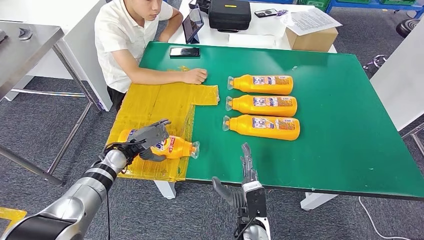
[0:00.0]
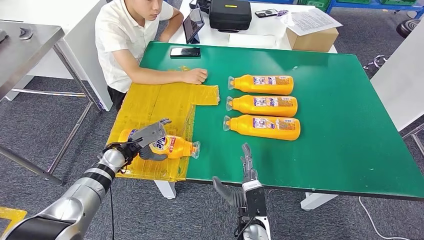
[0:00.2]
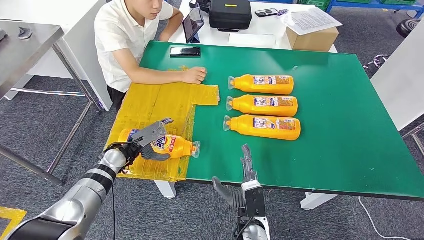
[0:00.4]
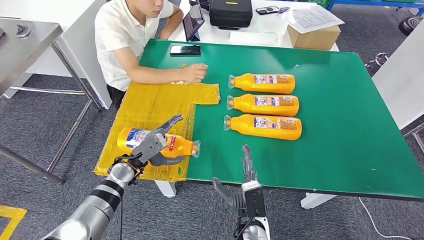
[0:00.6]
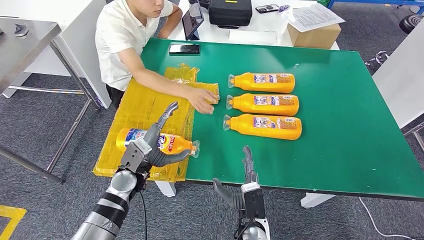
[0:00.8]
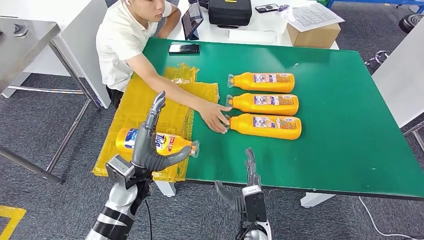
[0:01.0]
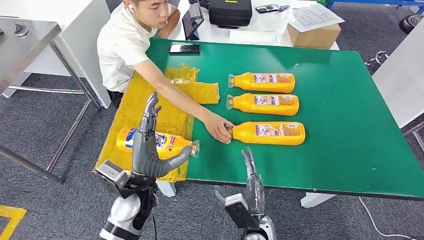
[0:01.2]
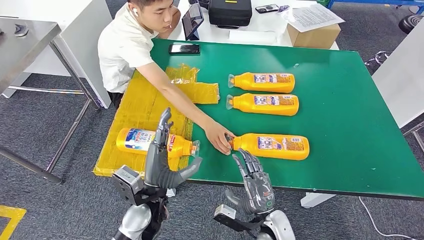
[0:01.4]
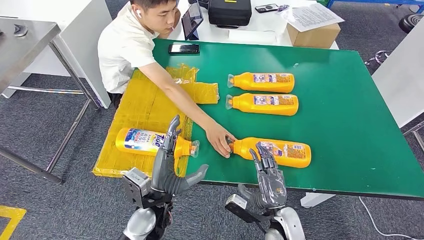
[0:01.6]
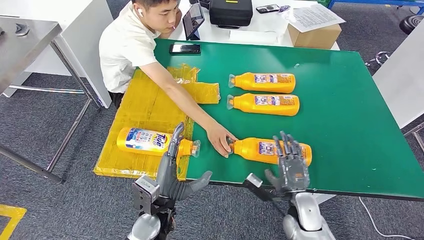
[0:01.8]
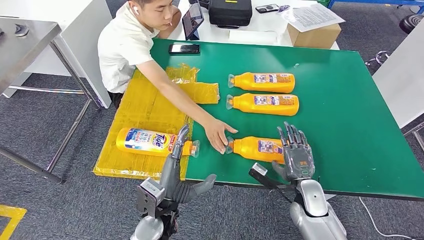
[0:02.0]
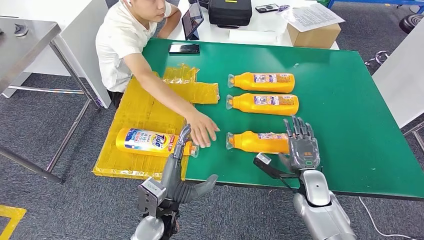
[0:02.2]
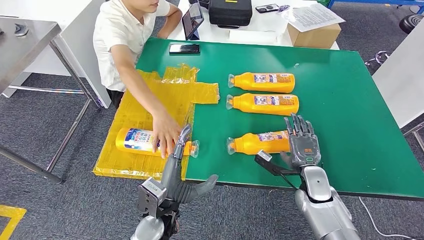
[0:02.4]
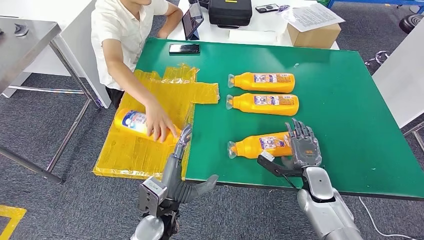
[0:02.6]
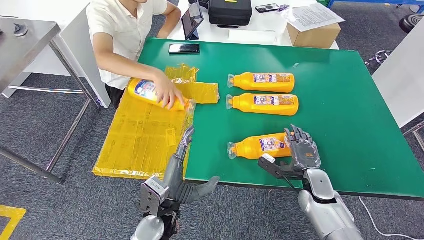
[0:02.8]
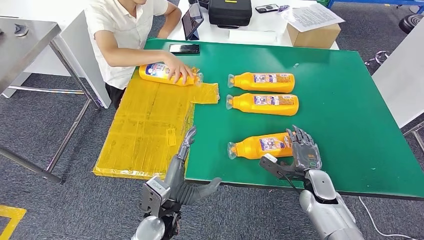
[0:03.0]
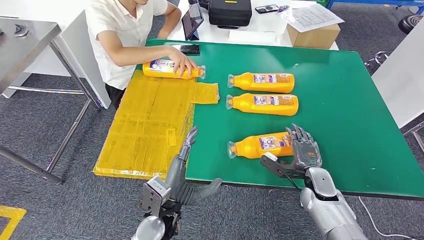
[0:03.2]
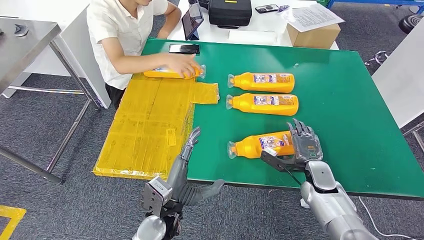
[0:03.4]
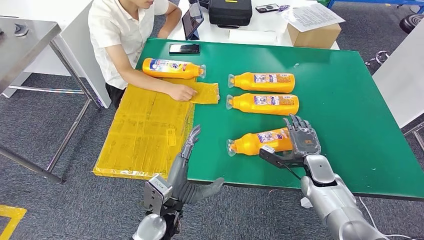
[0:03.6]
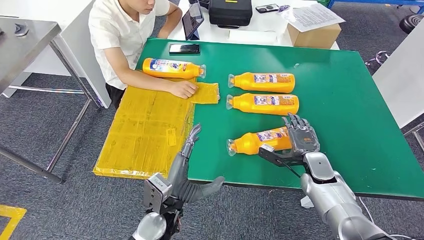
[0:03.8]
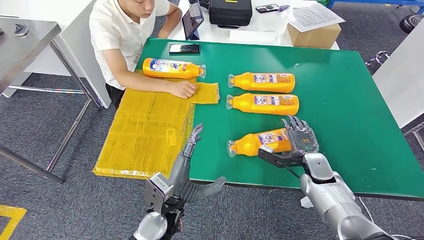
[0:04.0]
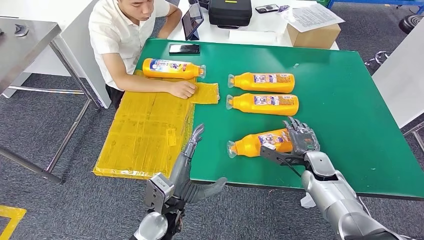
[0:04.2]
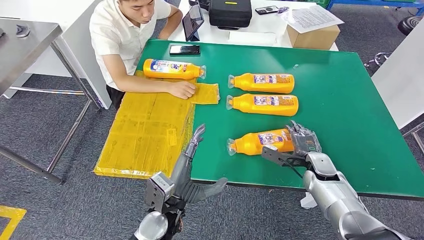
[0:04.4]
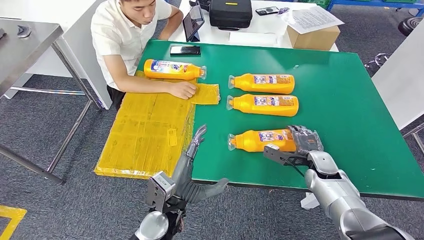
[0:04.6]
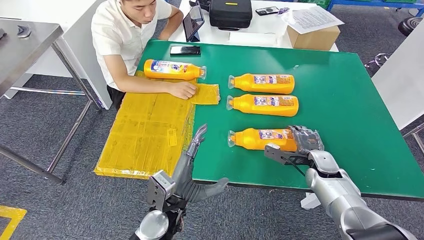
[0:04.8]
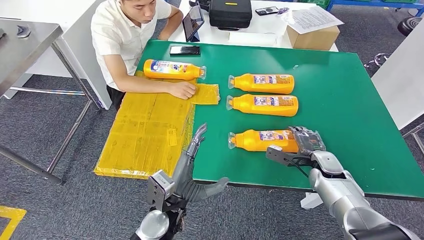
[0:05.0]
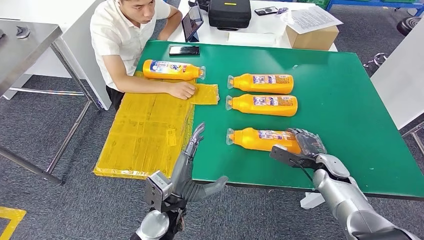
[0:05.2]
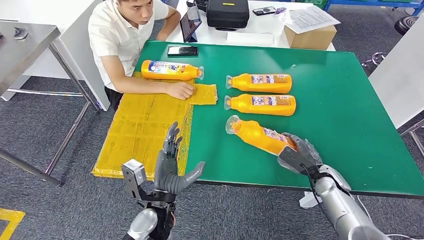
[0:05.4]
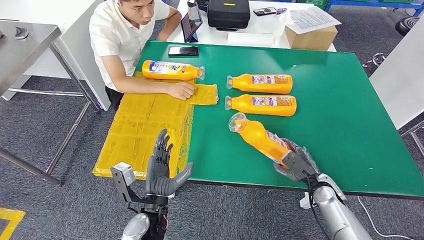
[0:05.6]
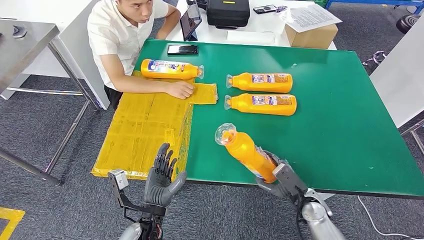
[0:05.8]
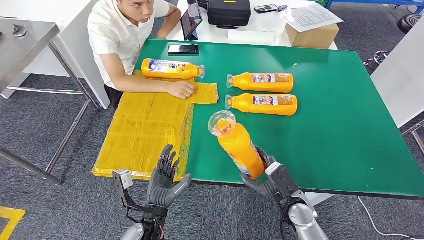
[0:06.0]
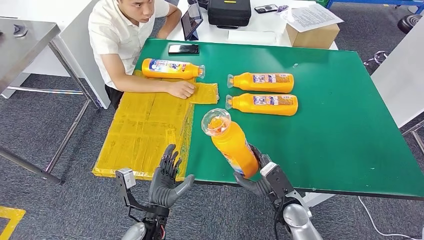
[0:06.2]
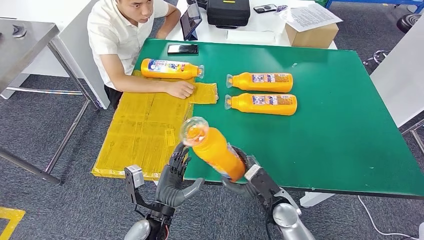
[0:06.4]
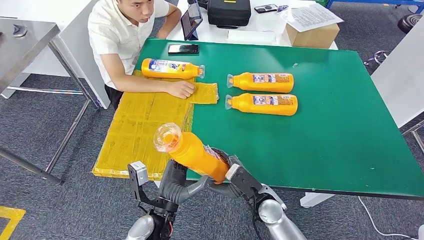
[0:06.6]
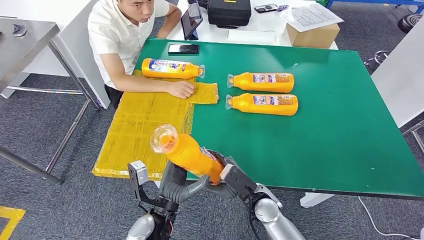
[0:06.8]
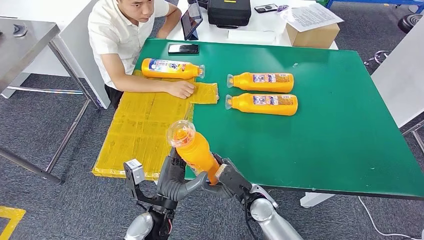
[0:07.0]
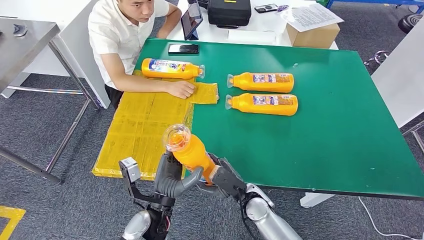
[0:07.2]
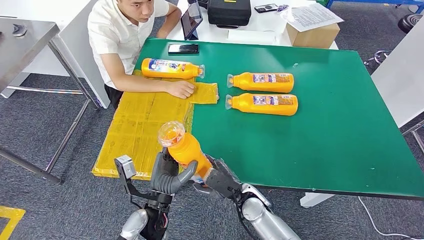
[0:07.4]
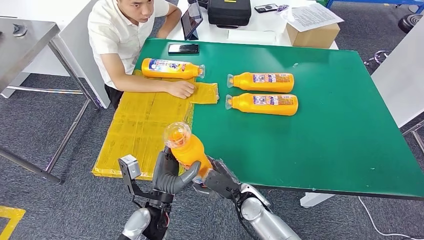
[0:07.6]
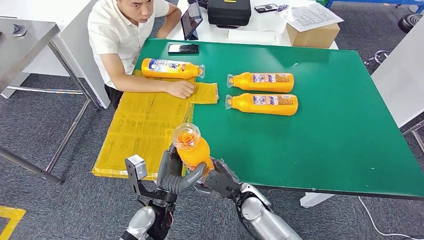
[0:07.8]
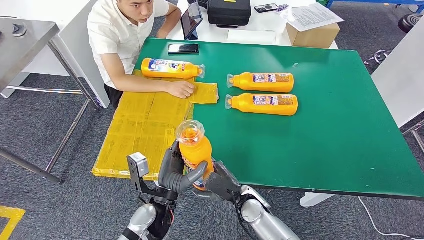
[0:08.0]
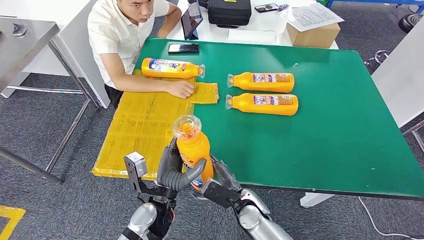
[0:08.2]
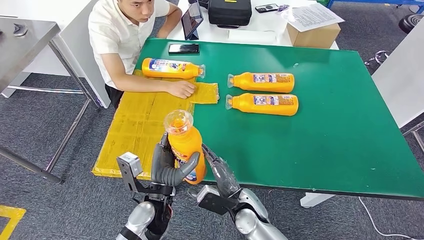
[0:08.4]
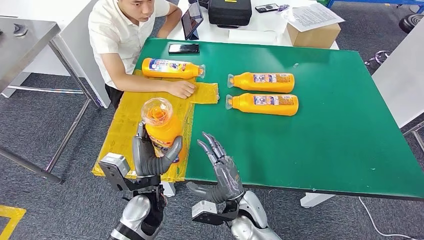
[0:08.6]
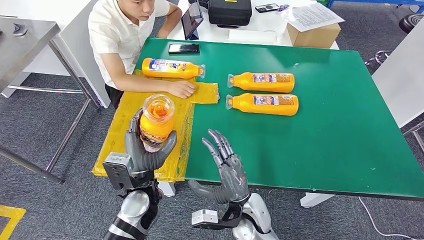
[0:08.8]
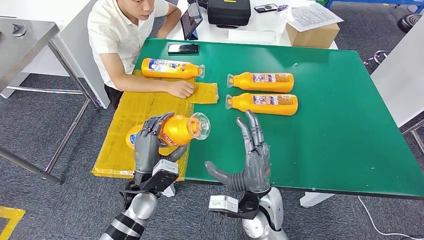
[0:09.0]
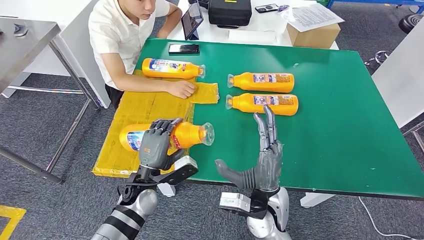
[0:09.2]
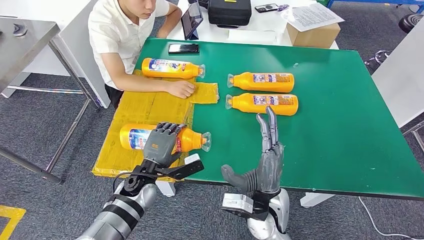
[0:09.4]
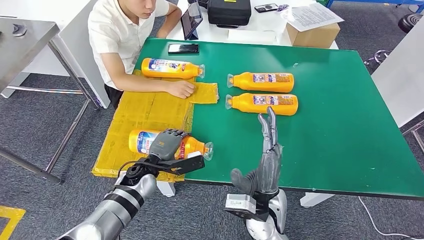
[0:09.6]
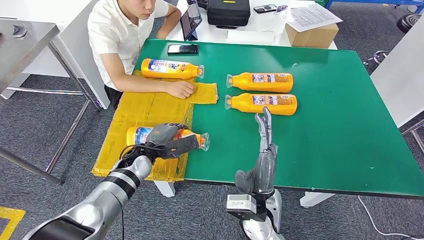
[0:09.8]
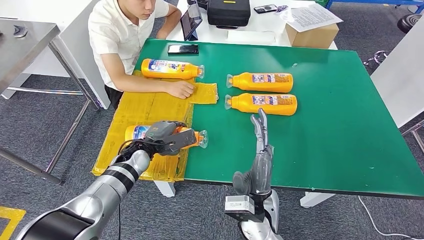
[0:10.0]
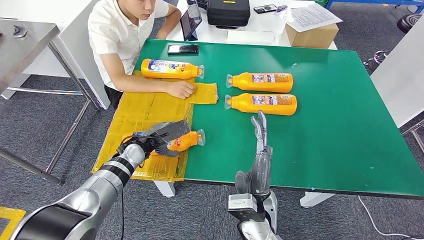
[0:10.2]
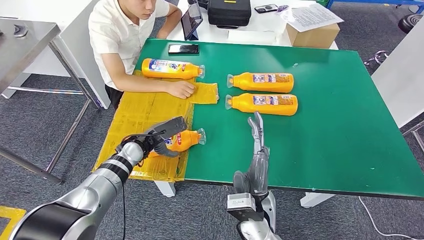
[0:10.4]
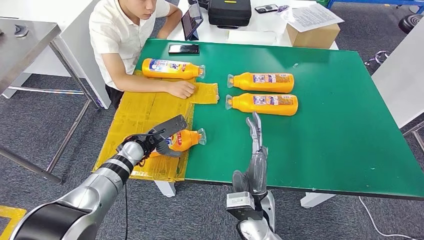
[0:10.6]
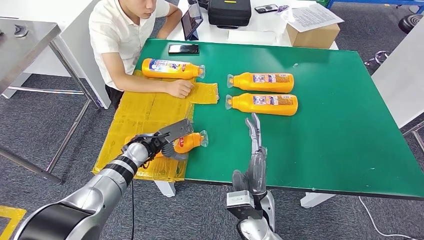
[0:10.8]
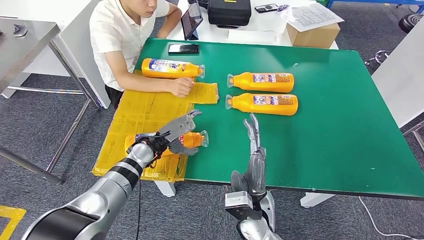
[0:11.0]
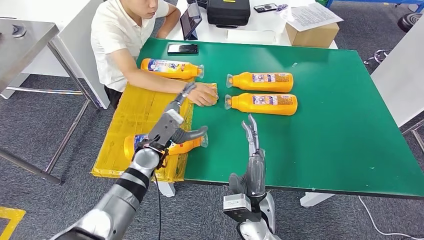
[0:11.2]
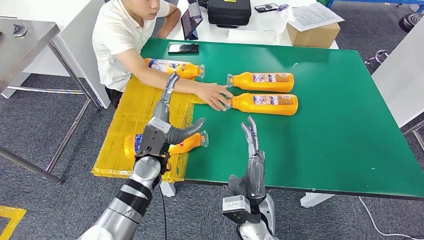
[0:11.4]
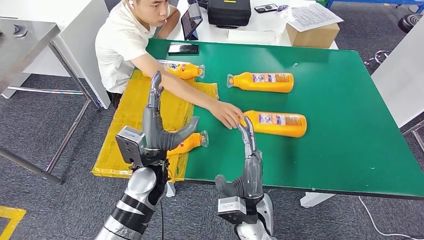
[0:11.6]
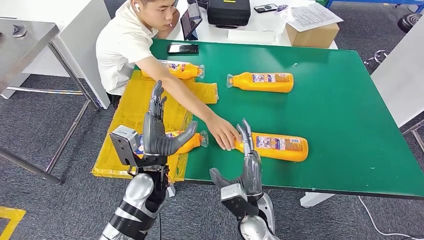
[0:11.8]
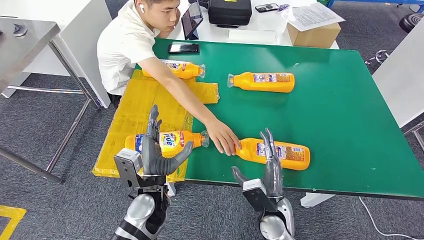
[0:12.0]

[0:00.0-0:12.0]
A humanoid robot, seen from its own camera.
Step, 0:00.0 to 0:05.6: Pick up the fast-moving consumer goods bottle from the table.
Step, 0:05.8 to 0:10.8: Flip the fast-moving consumer goods bottle to the front side.
0:03.0 to 0:04.4: The right hand goes roughly 5 cm forward.
0:04.4 to 0:06.0: The left hand shifts by approximately 5 cm, while the right hand travels backward and to the left by approximately 15 cm.
0:06.0 to 0:07.6: The right hand moves to the left, some 15 cm.
0:07.6 to 0:09.0: The left hand ends up some 5 cm from where it was; the right hand travels upward by about 10 cm.
0:09.0 to 0:10.4: The left hand moves forward and to the left, some 15 cm.

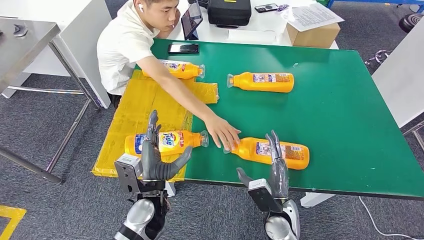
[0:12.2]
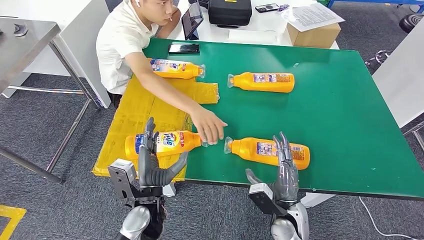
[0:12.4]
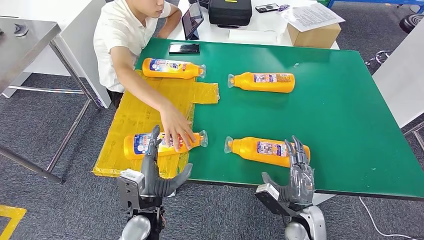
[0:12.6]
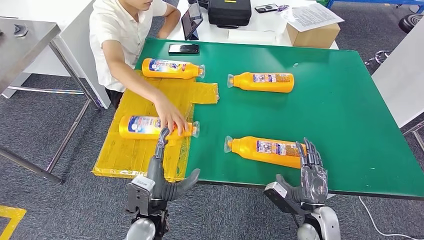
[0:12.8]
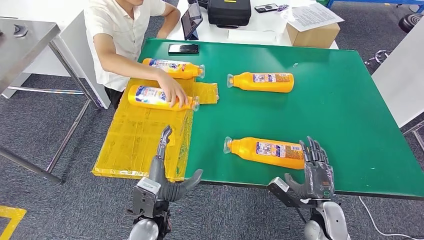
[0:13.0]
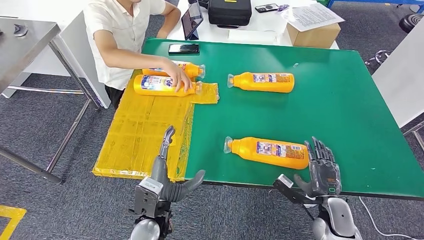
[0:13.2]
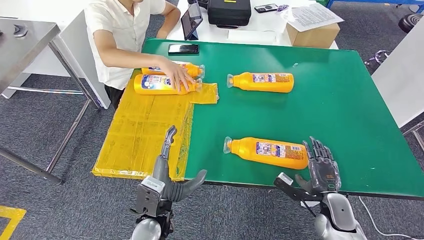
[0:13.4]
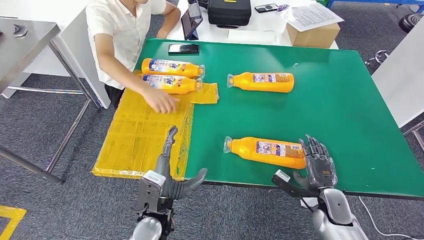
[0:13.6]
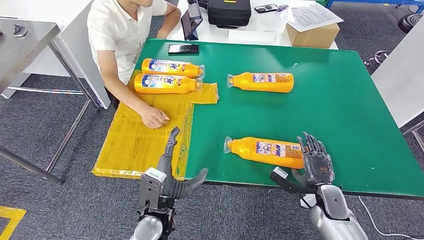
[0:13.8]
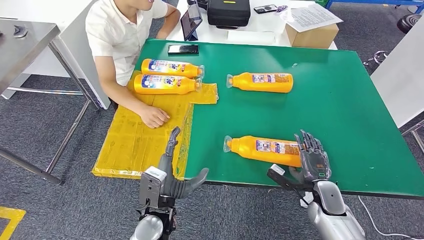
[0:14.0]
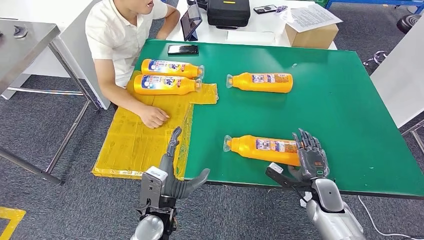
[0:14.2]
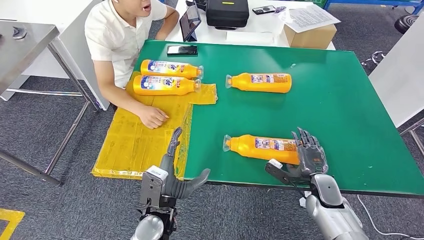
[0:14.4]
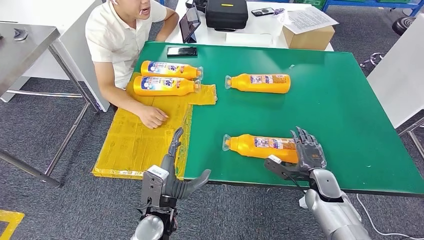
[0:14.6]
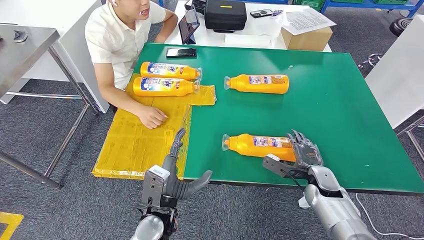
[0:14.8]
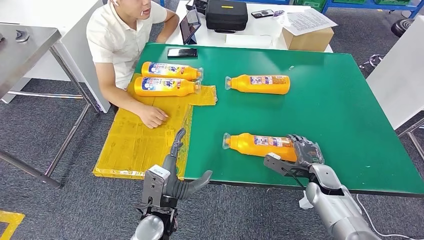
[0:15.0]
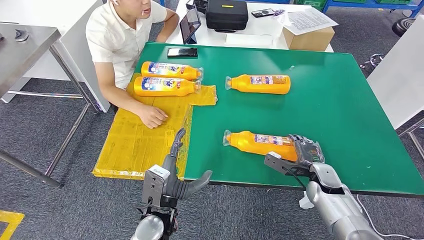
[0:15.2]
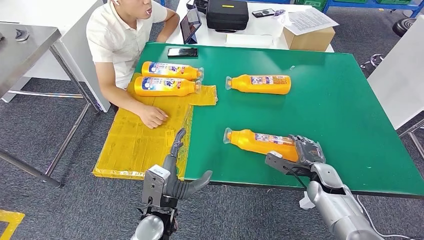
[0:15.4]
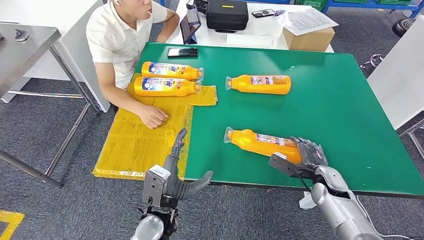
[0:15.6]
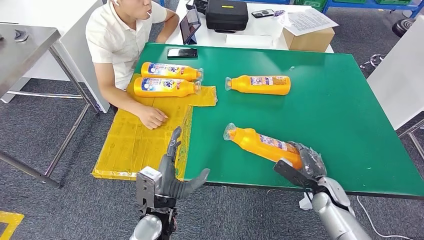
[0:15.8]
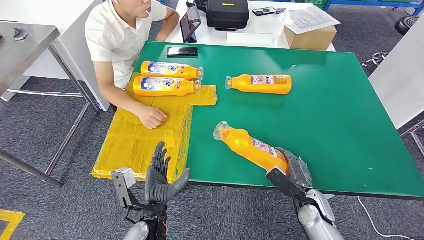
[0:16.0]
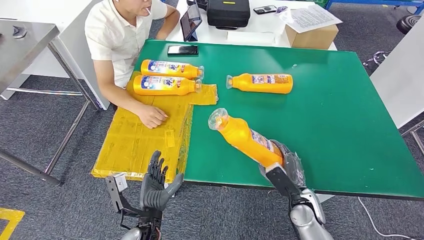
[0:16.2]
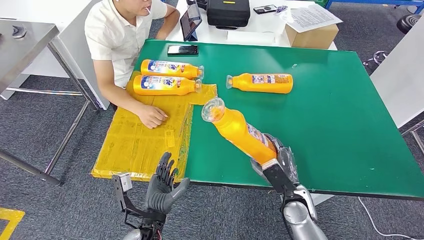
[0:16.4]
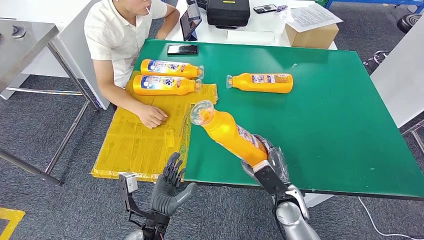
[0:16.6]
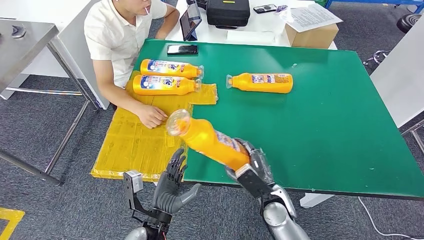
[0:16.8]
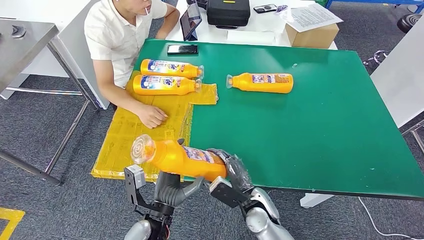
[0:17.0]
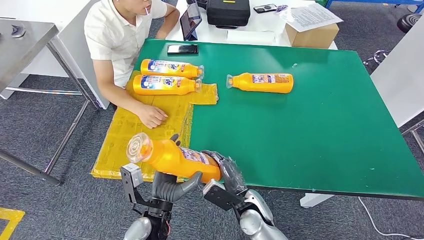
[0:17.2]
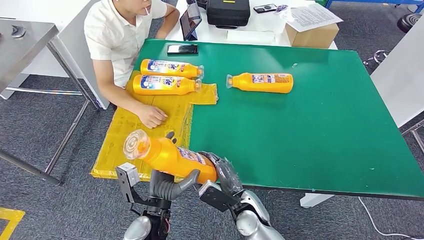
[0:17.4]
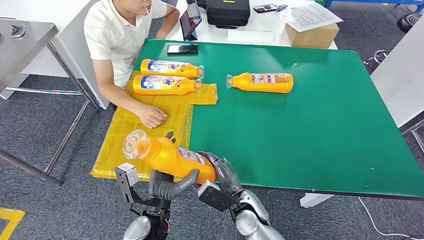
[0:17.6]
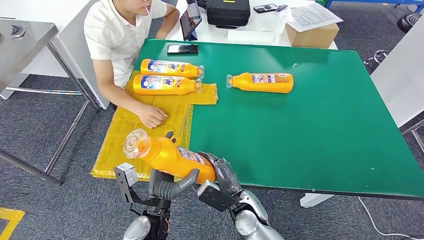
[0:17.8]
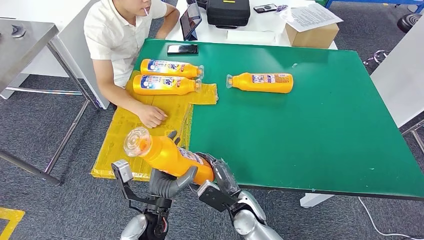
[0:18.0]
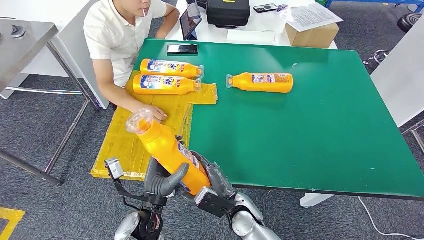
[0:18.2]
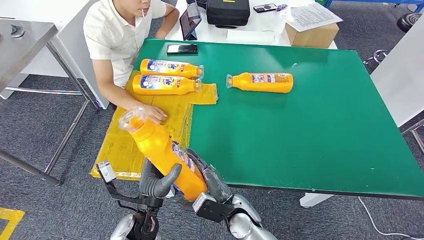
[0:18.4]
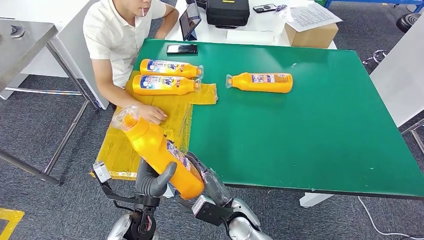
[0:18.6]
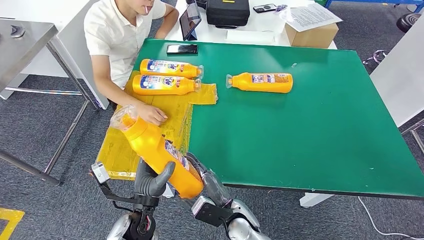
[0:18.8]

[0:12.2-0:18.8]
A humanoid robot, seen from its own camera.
Step, 0:12.2 to 0:16.6: Pick up the fast-moving consumer goods bottle from the table.
